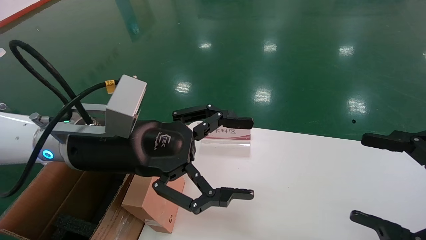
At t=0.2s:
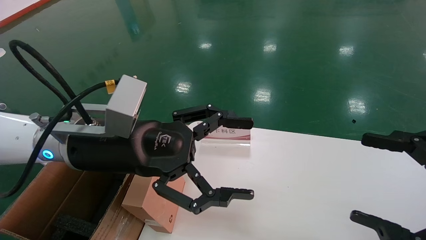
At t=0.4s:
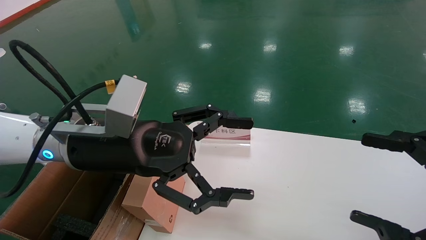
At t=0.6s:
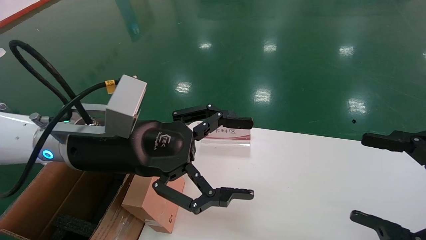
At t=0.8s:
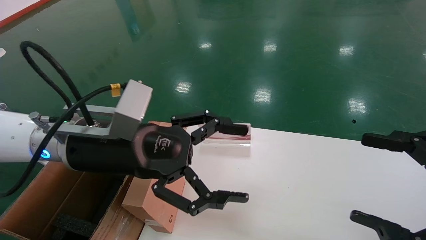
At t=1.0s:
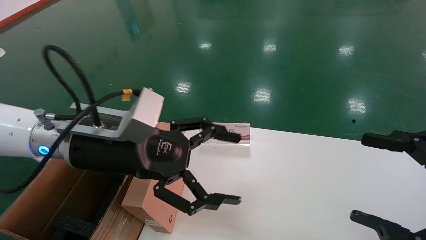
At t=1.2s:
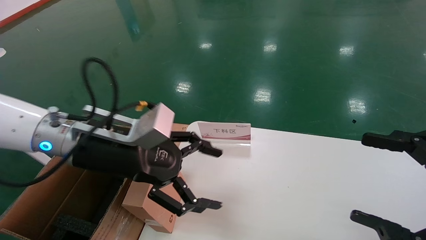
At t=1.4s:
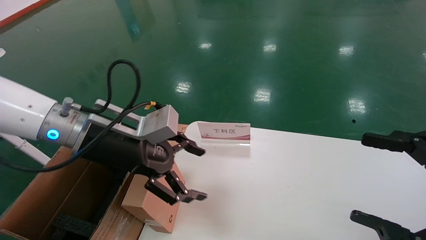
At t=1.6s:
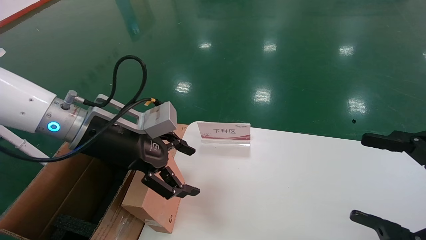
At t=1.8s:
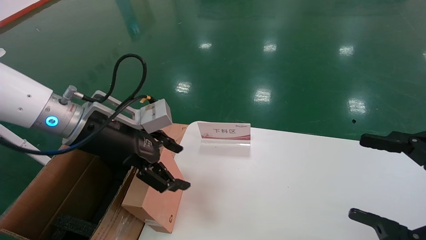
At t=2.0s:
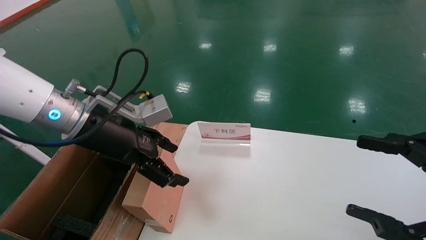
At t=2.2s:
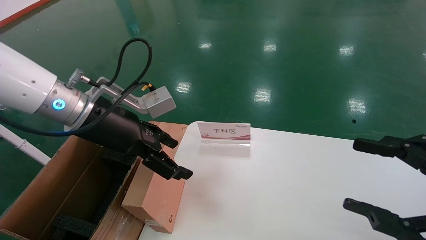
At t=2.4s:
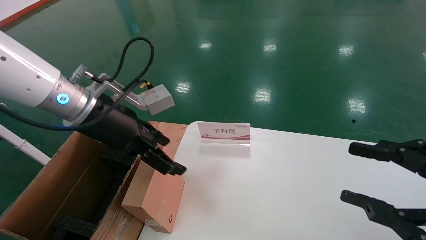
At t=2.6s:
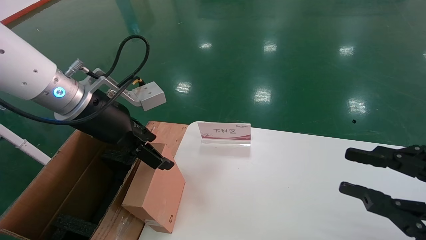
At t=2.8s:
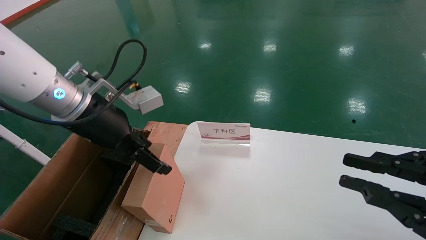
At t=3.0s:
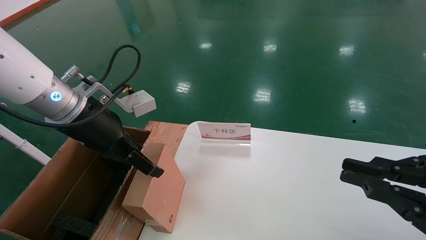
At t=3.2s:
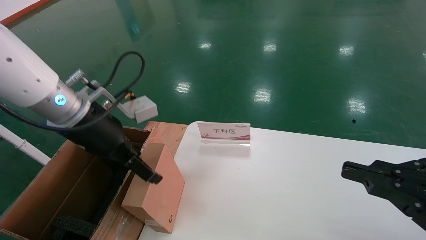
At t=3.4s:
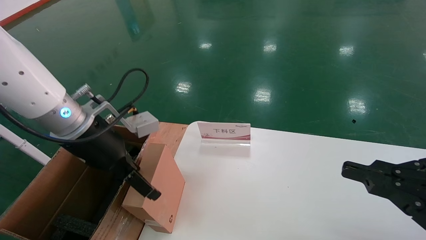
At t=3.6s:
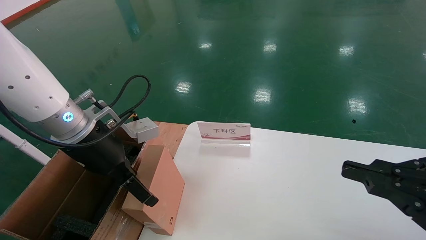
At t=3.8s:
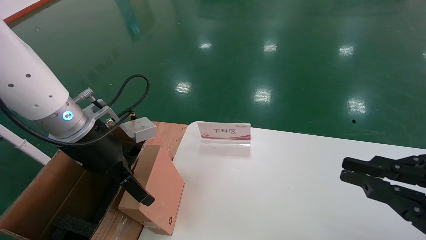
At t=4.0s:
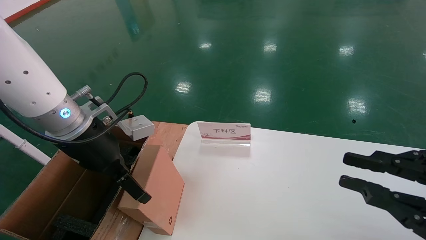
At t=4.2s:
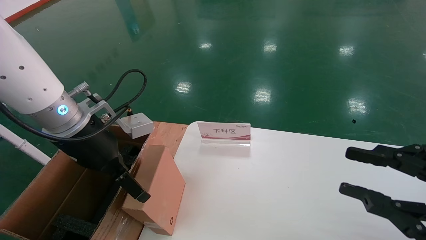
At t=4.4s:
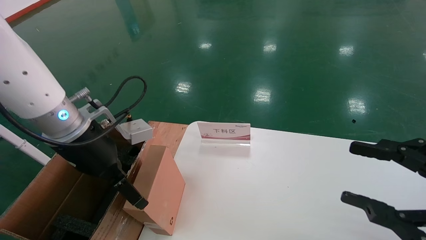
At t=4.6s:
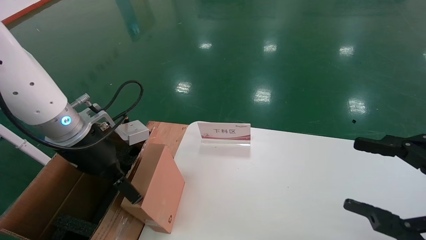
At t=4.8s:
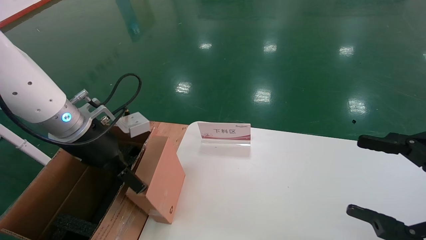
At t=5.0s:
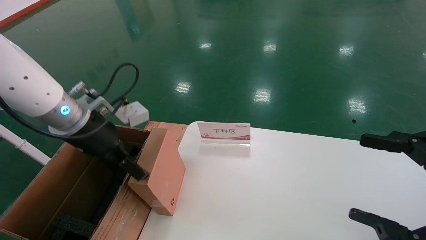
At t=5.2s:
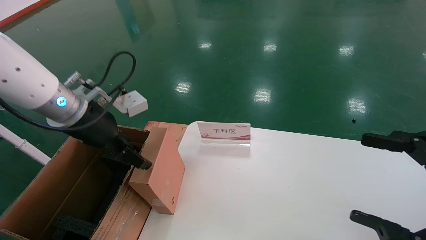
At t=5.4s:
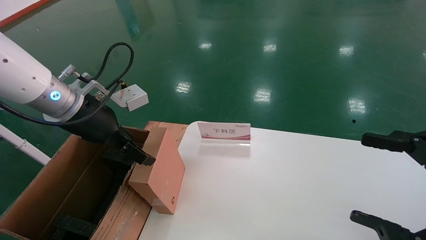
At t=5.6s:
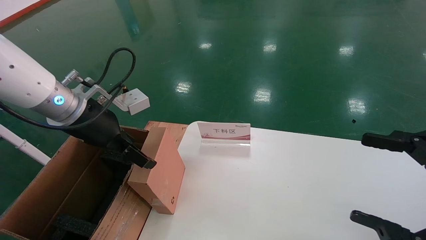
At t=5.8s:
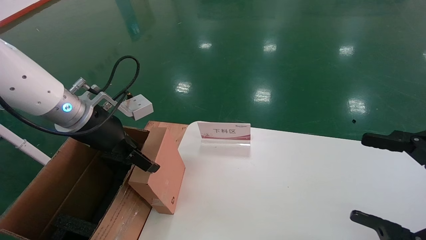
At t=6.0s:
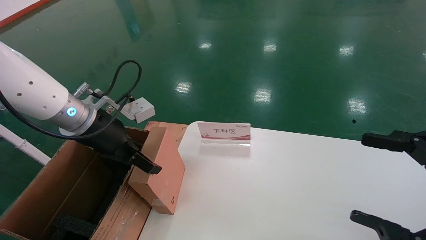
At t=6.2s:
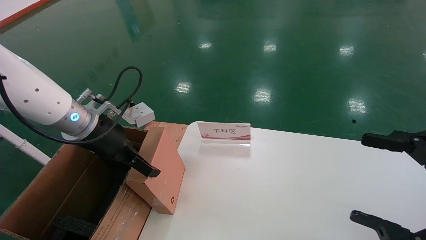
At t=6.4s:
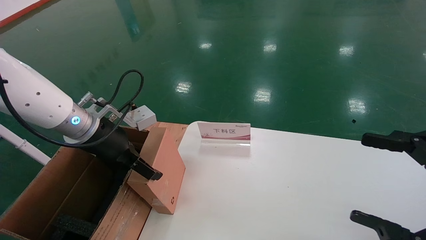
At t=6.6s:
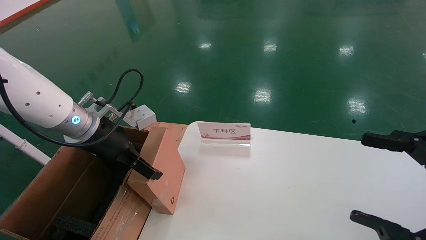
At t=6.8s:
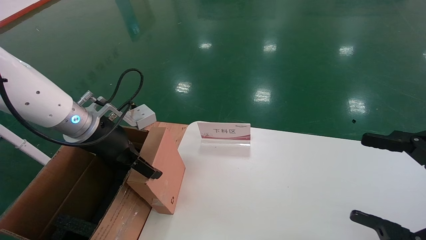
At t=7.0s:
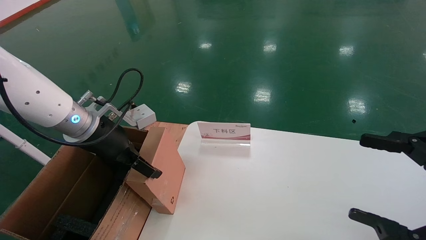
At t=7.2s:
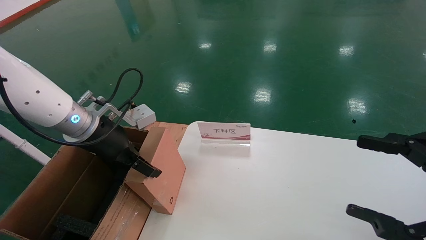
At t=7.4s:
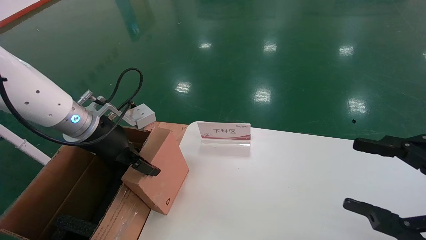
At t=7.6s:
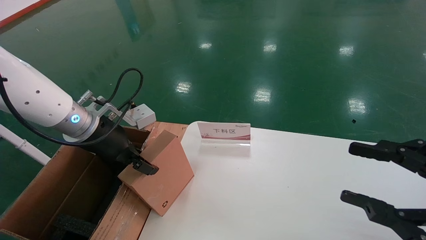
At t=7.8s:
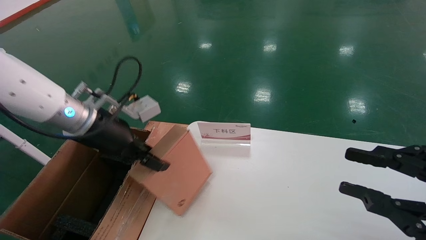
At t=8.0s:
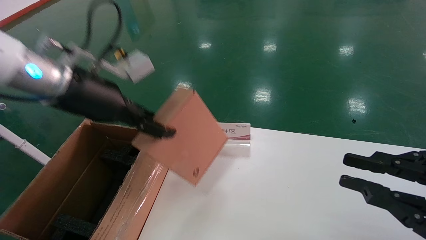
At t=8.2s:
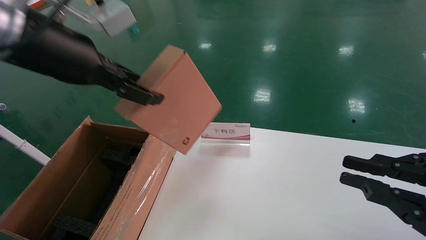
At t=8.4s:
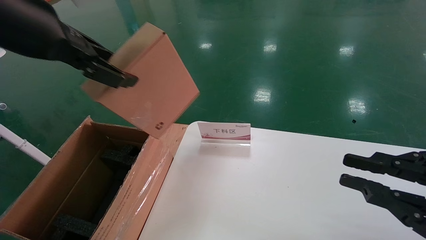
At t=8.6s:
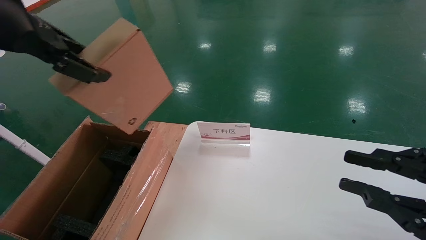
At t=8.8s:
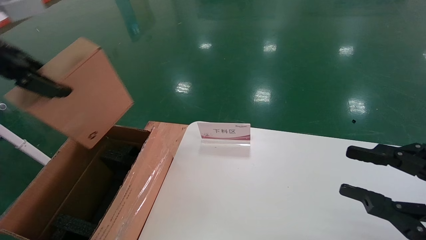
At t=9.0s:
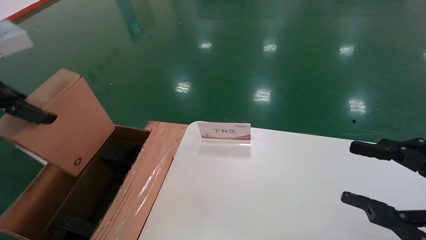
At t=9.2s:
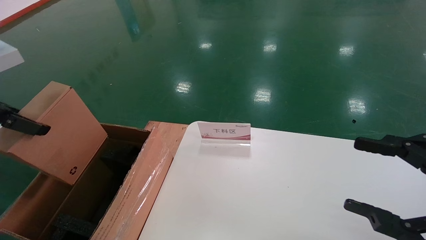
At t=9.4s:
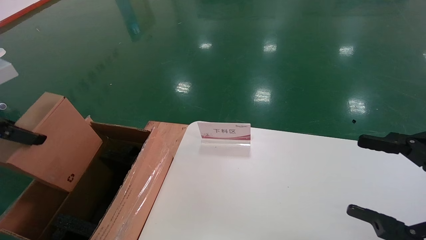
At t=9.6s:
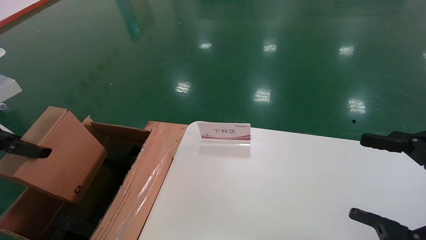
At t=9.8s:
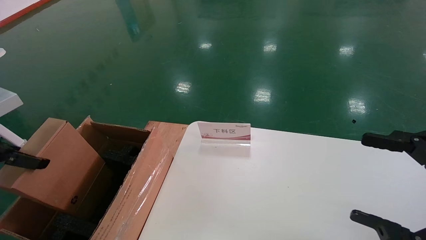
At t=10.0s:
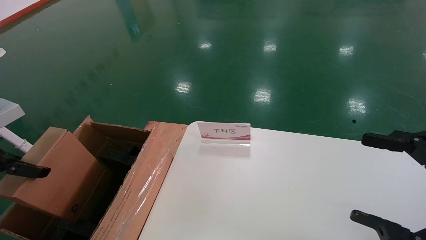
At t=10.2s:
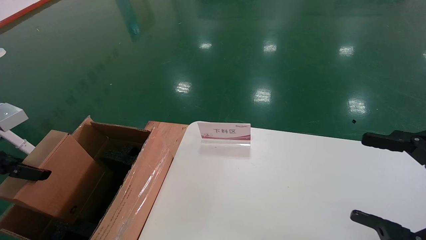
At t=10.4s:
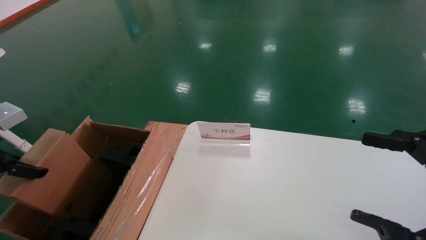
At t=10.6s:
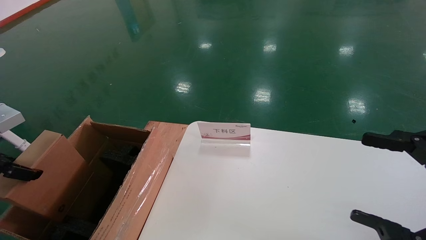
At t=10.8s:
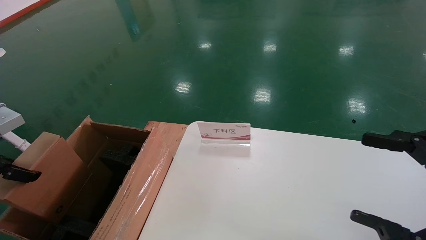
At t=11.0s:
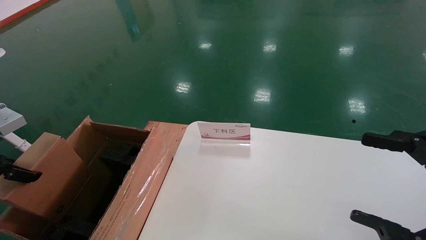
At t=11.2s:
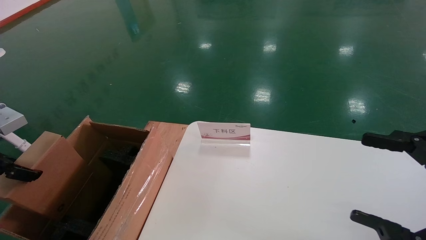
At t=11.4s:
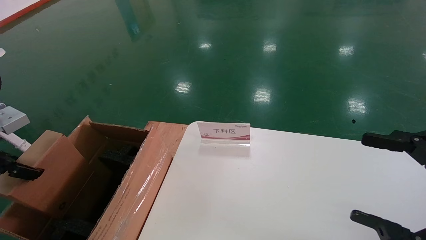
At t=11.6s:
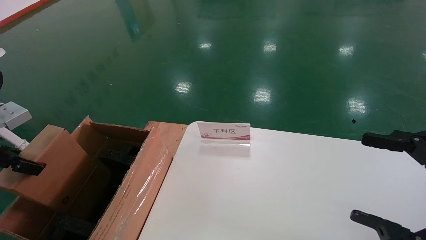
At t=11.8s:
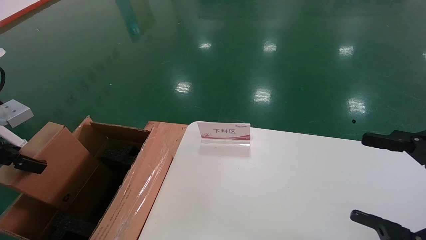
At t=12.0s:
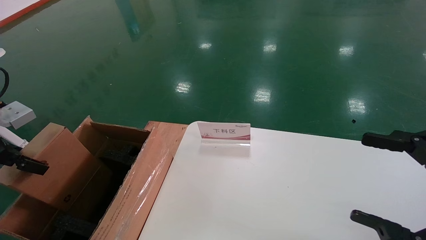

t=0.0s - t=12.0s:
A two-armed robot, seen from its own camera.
Task of the whole recording: pick up the small cardboard box and load it into the large cardboard box.
Step, t=0.8s - t=8.0s: Pick up the mouse and power cord box.
t=1.6s - t=3.0s: The right gripper closes up.
t=3.0s - t=4.4s: The grippers move only a little.
t=4.4s - t=6.0s: The right gripper opens.
t=6.0s - t=7.6s: The right gripper closes up. The left gripper closes its fingers.
t=7.6s - t=9.0s: The left gripper goes about 25 cm upward, backward and to the left.
t=9.0s - t=10.4s: The right gripper opens its fingers. The left gripper moves downward and to the left, some 15 cm.
t=10.4s - t=12.0s: The grippers move only a little.

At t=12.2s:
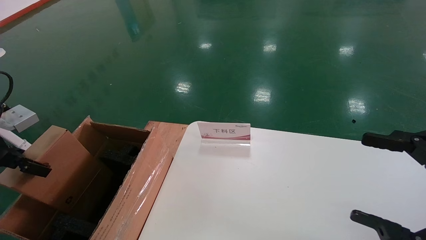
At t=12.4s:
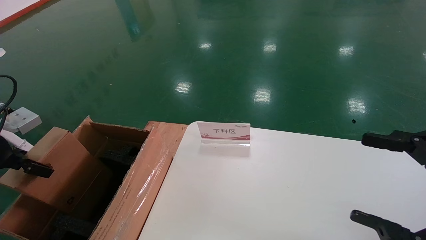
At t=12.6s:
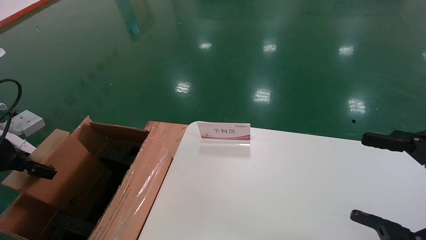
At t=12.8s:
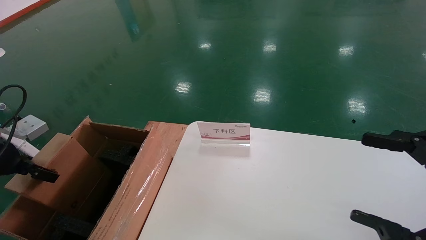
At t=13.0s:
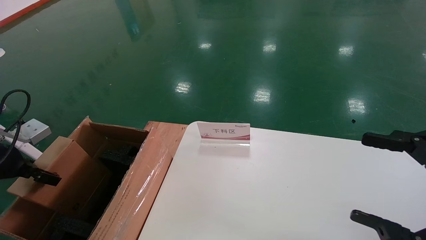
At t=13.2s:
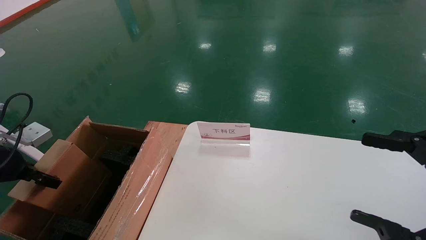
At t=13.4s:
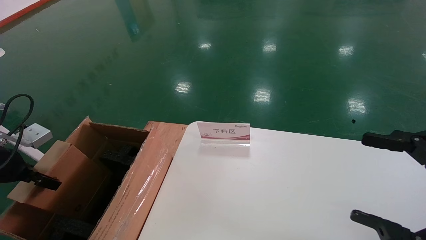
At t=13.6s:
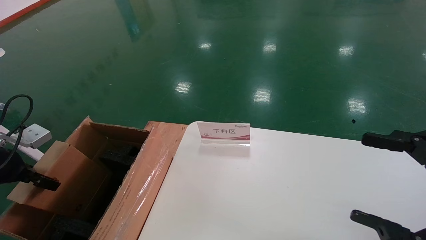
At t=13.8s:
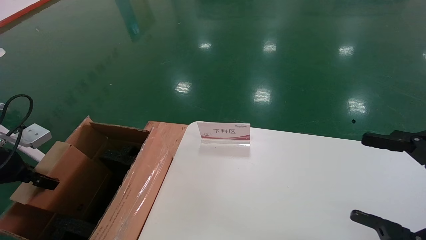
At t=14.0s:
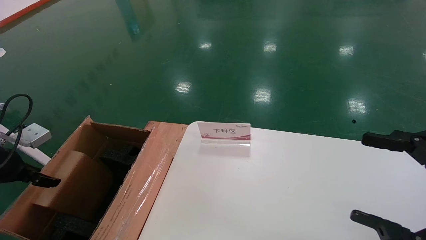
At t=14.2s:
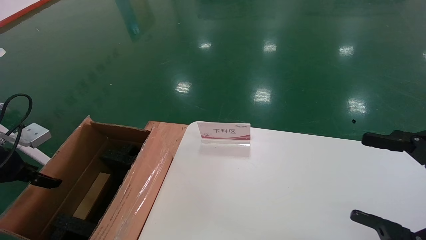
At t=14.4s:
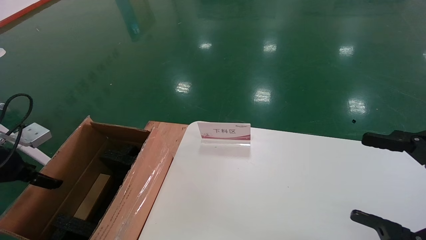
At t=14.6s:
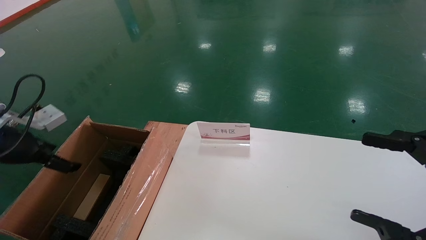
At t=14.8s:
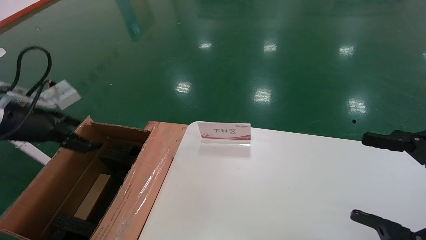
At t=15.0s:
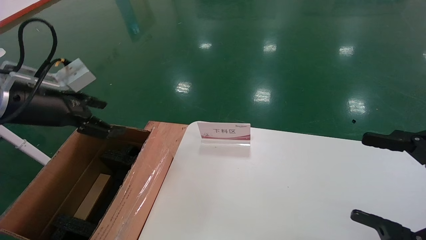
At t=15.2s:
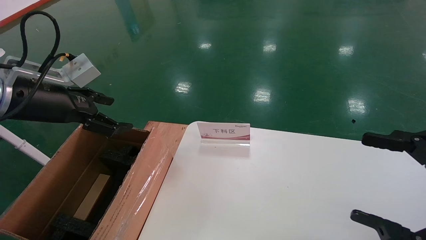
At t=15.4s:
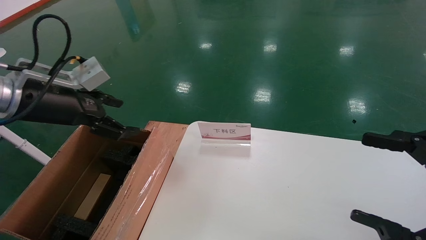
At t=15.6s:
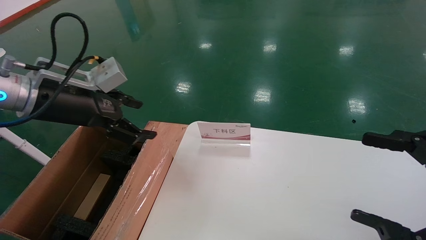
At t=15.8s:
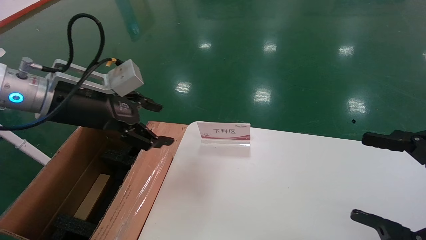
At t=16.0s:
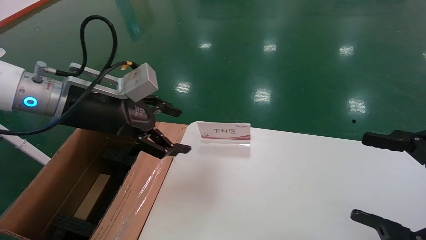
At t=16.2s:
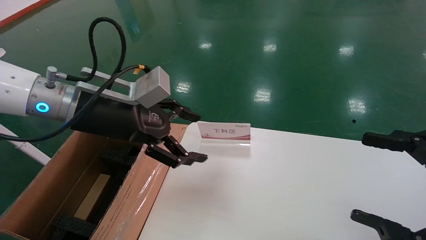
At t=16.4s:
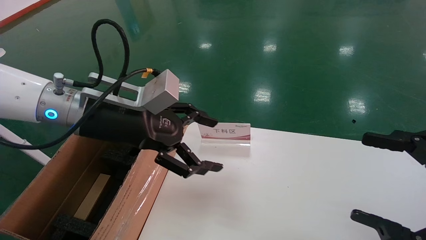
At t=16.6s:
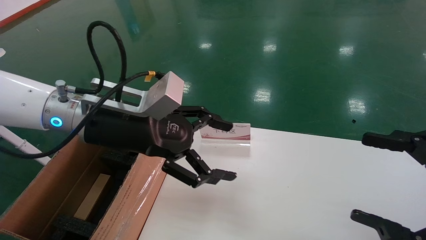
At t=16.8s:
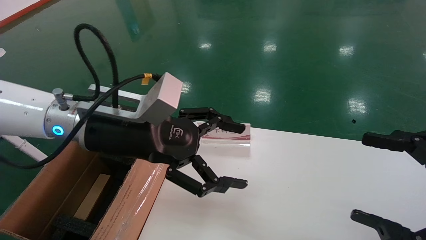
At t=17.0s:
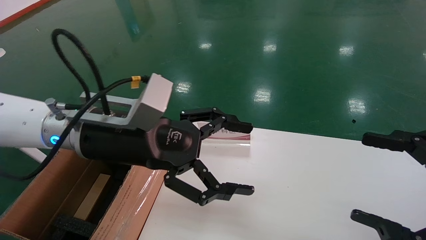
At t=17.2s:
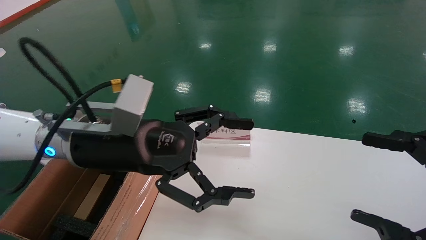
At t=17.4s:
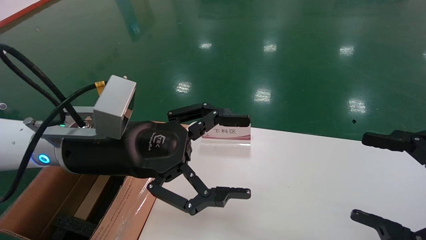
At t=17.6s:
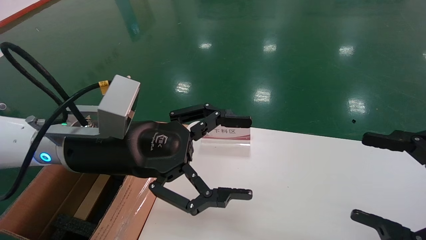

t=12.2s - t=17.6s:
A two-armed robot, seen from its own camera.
Task of the whole recording: pick up the small cardboard box and load it into the large cardboard box.
Step, t=12.2s - t=14.4s: Place the mouse and power cord box into the case.
t=12.2s - t=13.6s: The left gripper moves approximately 5 cm.
t=13.6s - t=15.0s: The left gripper goes about 15 cm upward and to the right, and opens.
t=15.0s - t=16.2s: The left gripper moves to the right, some 15 cm.
t=16.2s - t=17.6s: The left gripper ends up some 5 cm from where it was.
